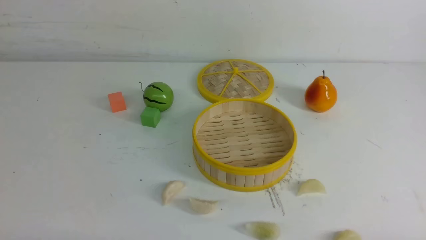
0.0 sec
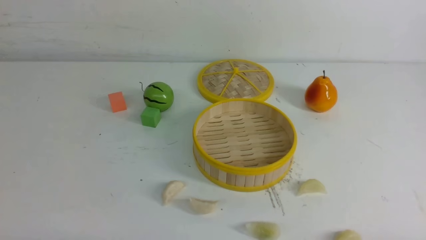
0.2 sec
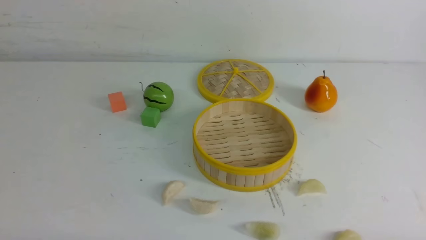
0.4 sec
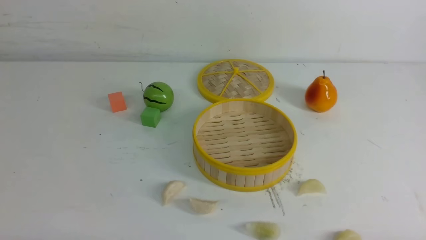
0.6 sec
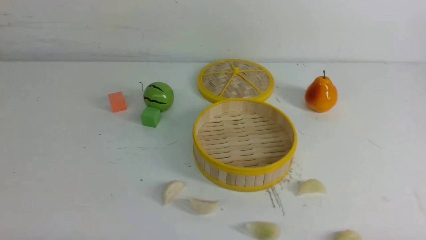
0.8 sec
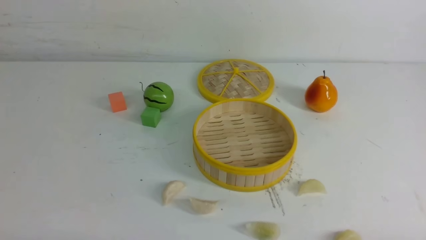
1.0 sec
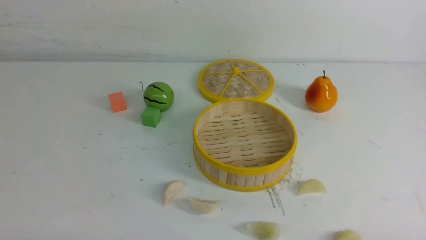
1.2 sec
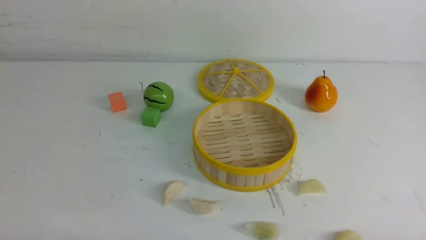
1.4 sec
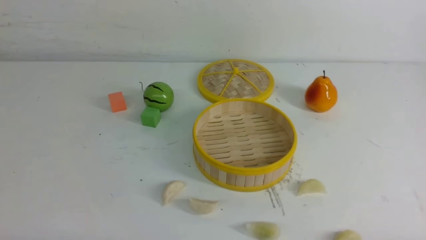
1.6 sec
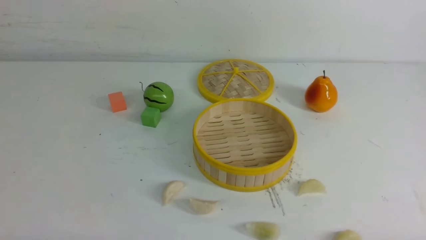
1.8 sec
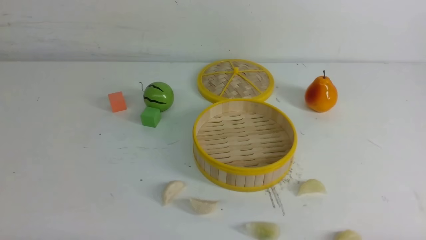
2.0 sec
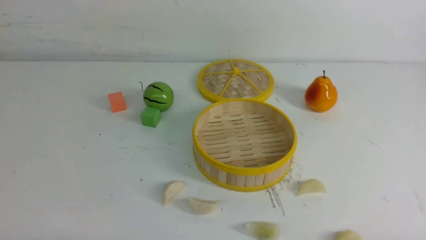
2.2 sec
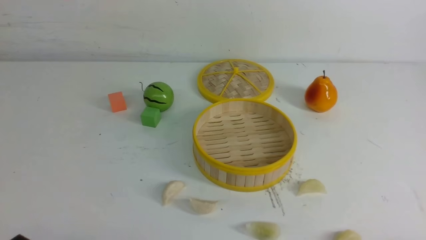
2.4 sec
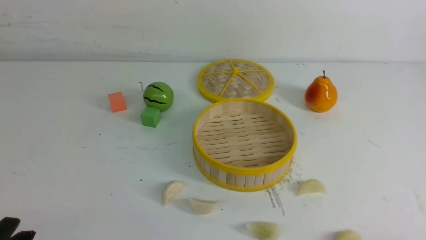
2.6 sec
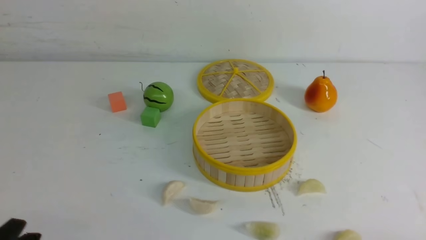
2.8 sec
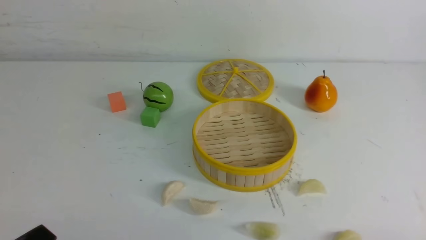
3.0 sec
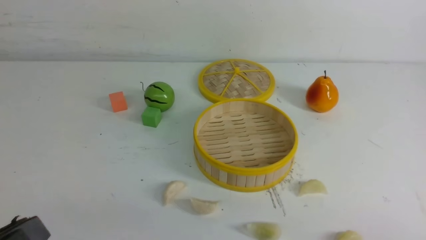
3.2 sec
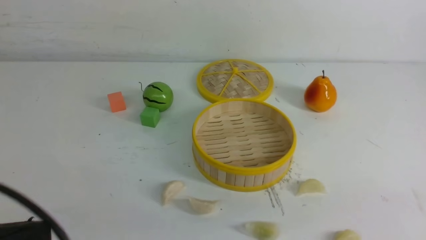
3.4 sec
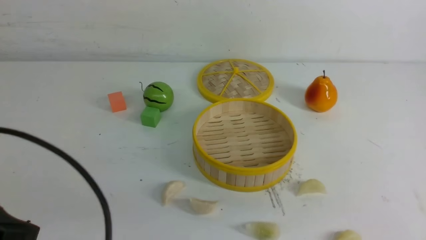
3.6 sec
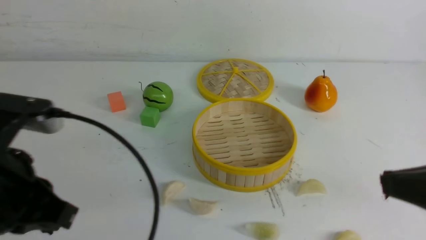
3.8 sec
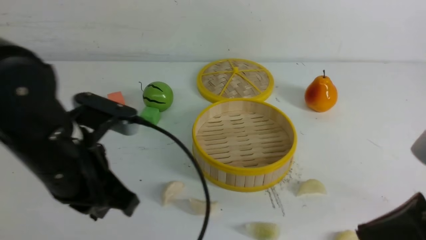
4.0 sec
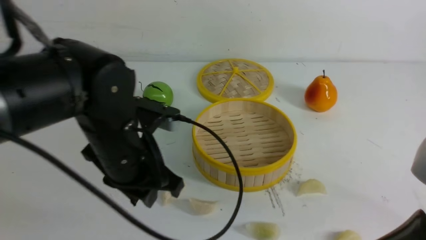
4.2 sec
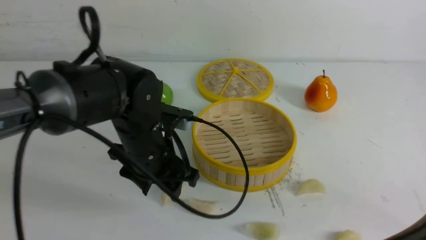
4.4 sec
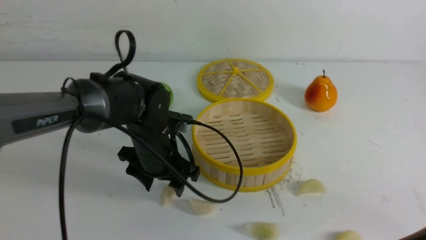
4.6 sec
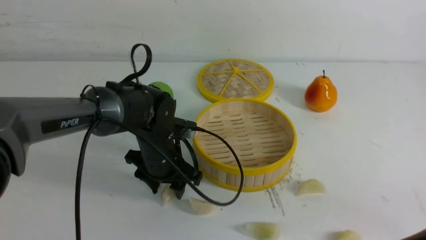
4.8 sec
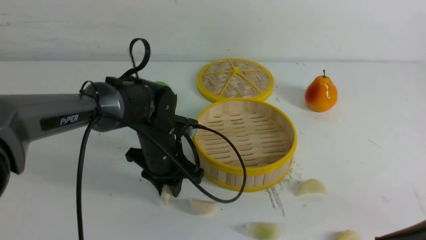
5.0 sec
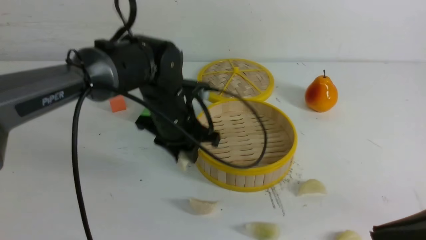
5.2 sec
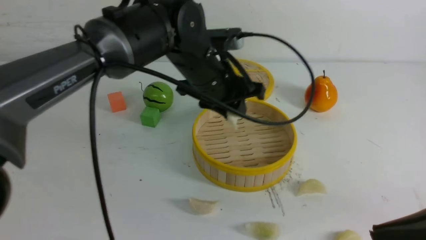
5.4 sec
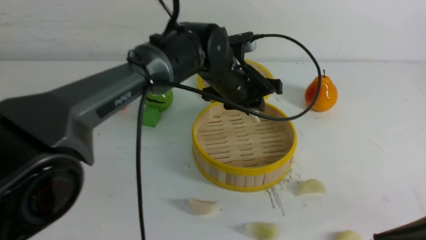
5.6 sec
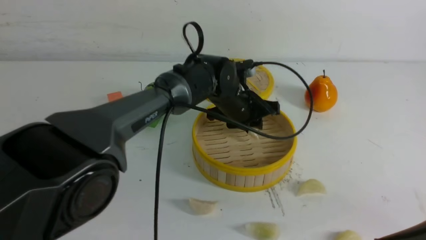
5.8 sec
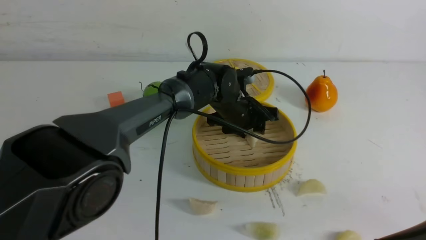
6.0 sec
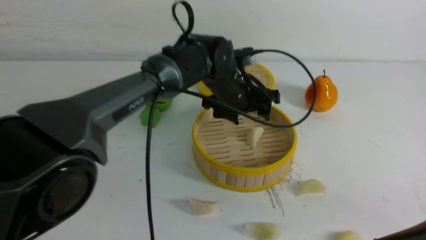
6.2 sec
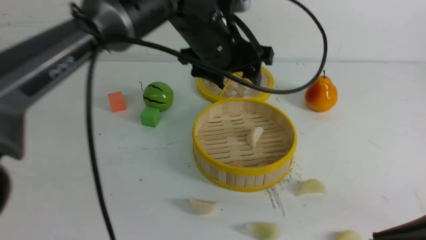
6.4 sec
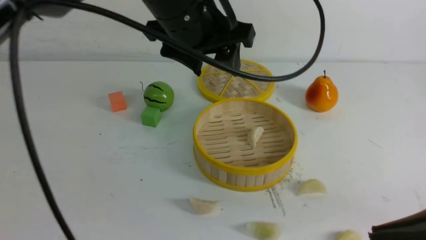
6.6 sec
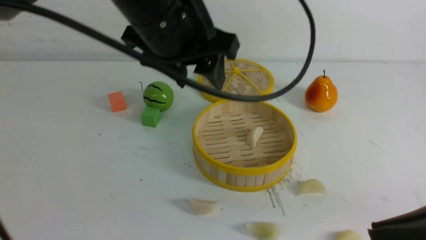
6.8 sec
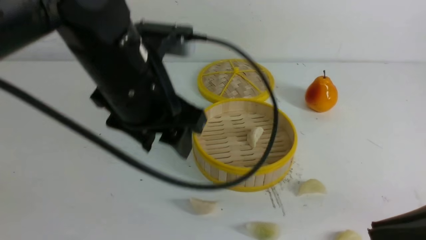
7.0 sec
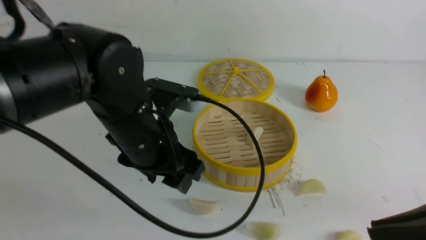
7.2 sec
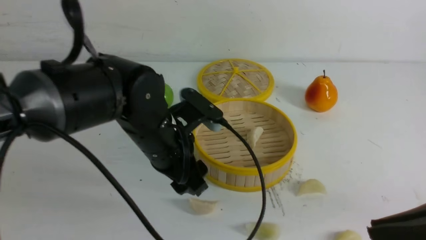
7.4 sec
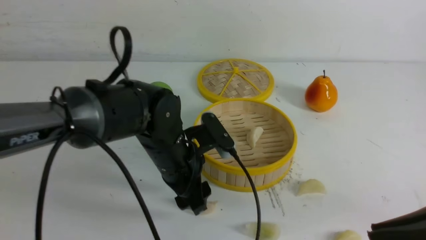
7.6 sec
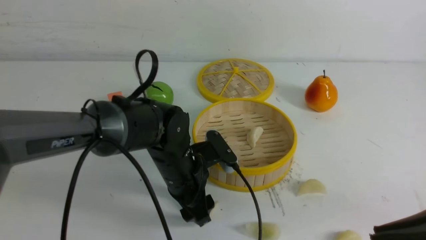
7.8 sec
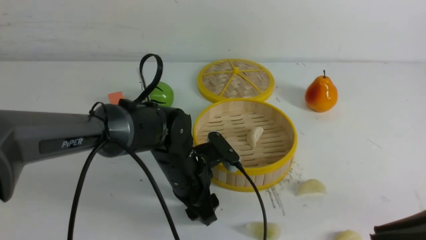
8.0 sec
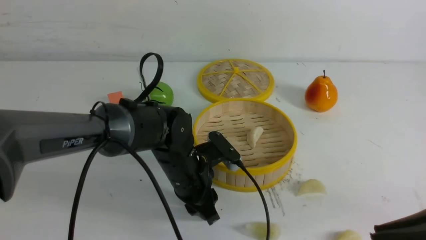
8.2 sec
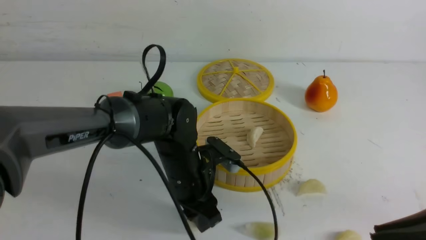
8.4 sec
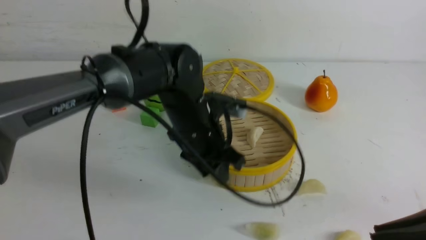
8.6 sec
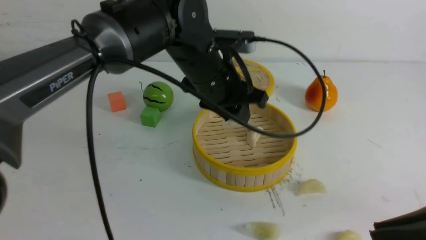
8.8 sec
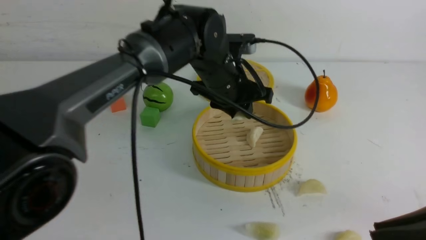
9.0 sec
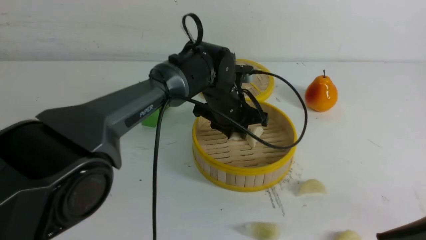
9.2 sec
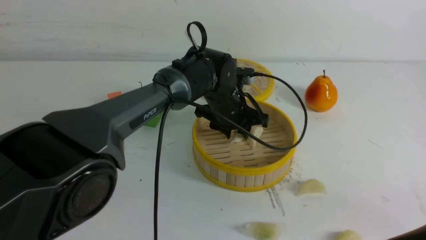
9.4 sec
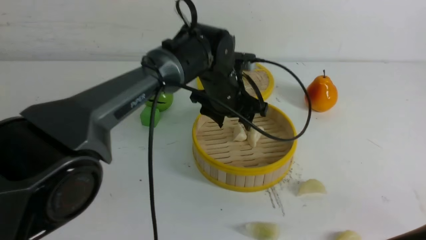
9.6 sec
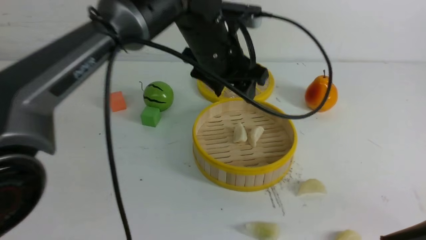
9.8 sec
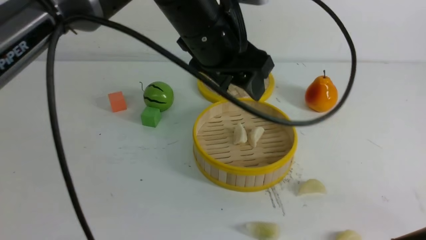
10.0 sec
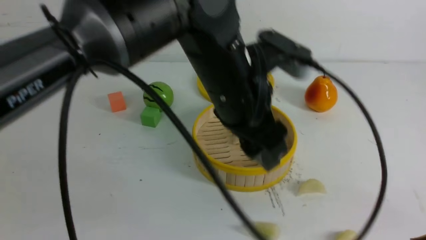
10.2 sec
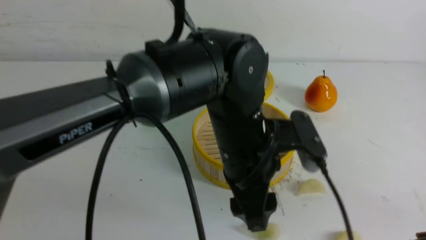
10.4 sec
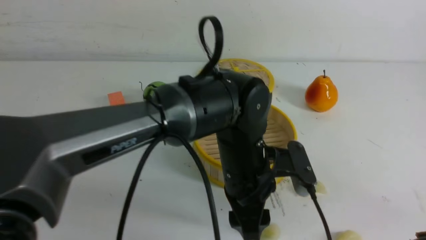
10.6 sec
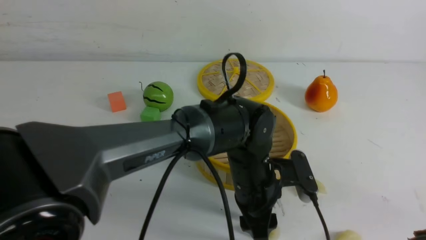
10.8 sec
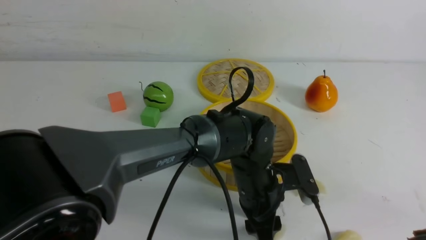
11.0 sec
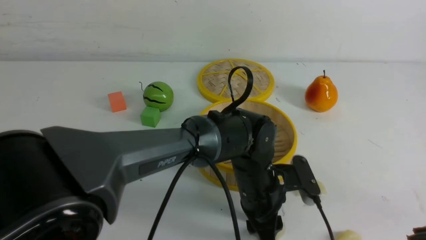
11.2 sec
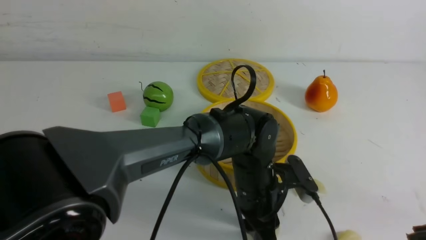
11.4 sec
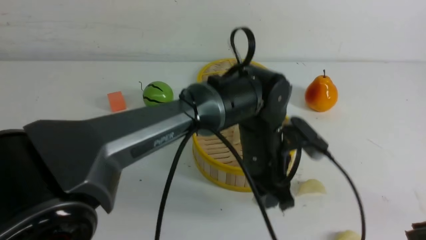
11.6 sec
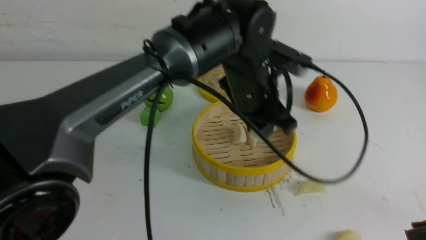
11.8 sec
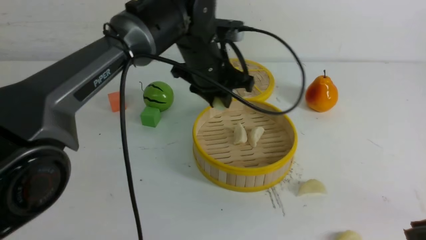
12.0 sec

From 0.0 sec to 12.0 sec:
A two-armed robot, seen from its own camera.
Task of the whole recording: put the dumplings into the steamer on the white table.
Step, from 0.0 sec to 5.0 sec: use the left arm to grab a dumpling.
Step, from 5.2 sec to 6.0 sec: use the left arm to put the dumpling into the steamer.
Step, from 6.2 sec to 8.2 sec: use the left arm to grab a dumpling.
Step, from 8.4 sec to 9.4 sec: use the left arm to put the dumpling into the steamer.
Step, from 9.6 sec to 11.4 sec: use the left arm to grab a dumpling.
From 3.0 sec to 4.4 sec: The left gripper is displaced forward and to the right by some 30 cm, and closes, then opens again; the right gripper moves upward and forward, some 15 cm, and closes.
From 4.4 sec to 6.0 sec: The left gripper travels forward and to the right by approximately 20 cm.
From 6.0 sec to 7.6 sec: The left gripper is displaced backward and to the left by approximately 15 cm, and reaches some 20 cm upward, then returns.
From 7.6 sec to 9.0 sec: The left gripper is displaced forward, to the right and upward by roughly 10 cm, and closes.
From 9.0 sec to 10.4 sec: The left gripper travels backward by approximately 10 cm, and opens up.
From 10.4 sec to 12.0 sec: The left gripper travels forward by approximately 10 cm, travels downward and back again, some 15 cm each way, and closes its fingers.

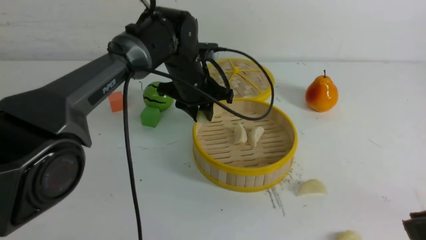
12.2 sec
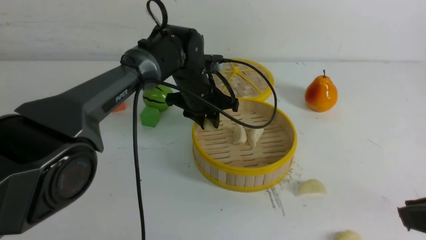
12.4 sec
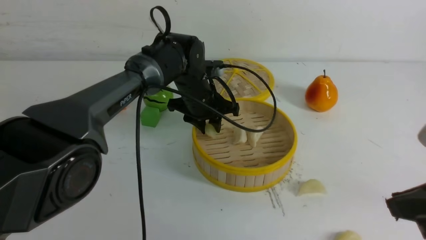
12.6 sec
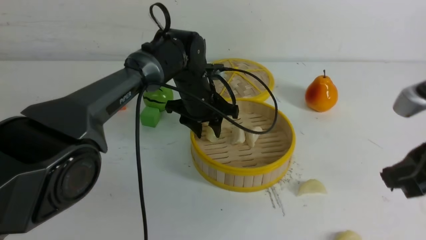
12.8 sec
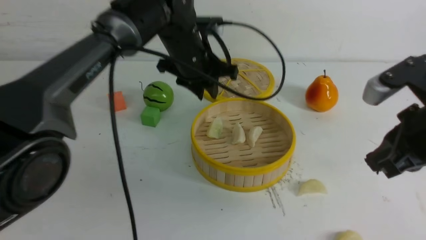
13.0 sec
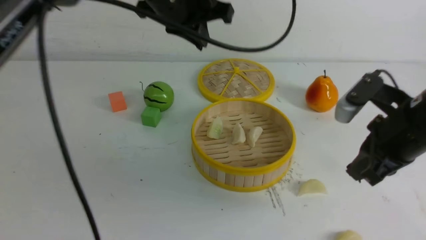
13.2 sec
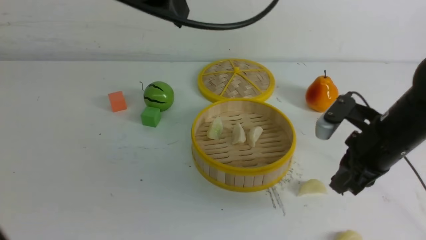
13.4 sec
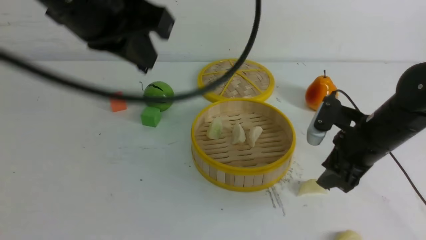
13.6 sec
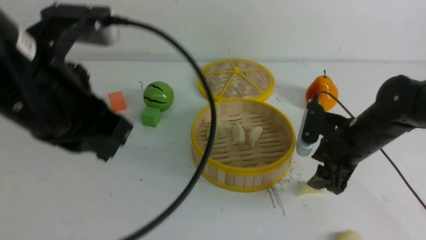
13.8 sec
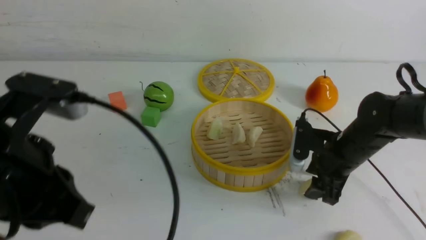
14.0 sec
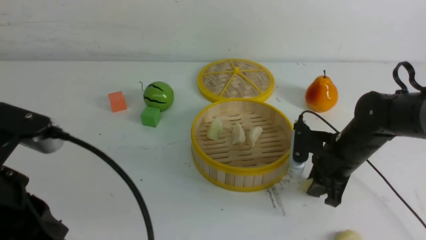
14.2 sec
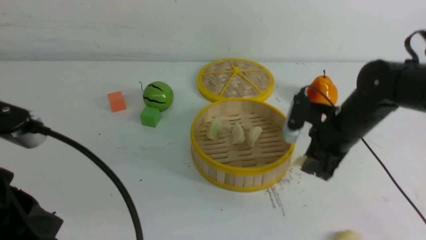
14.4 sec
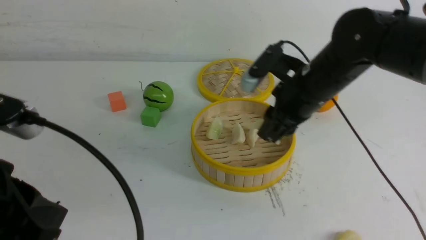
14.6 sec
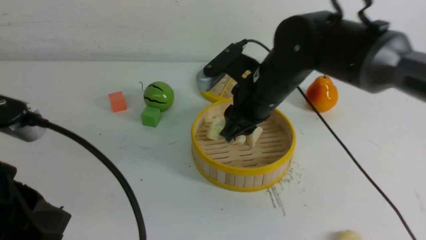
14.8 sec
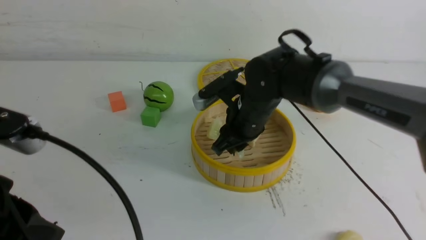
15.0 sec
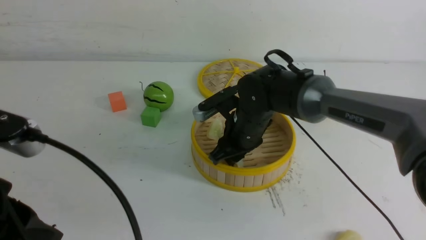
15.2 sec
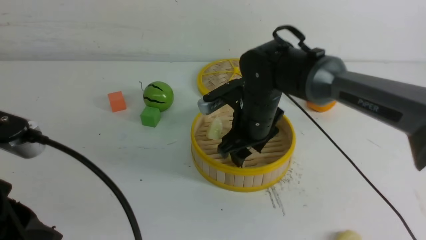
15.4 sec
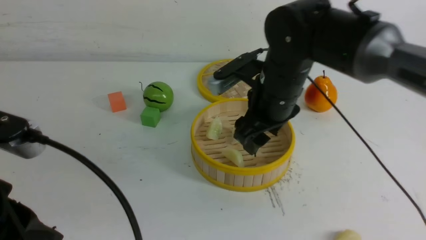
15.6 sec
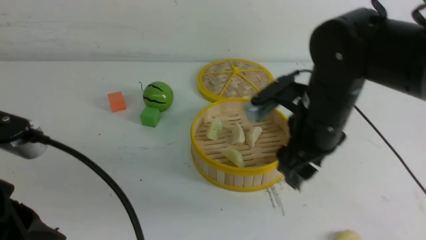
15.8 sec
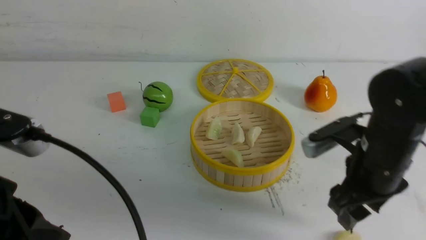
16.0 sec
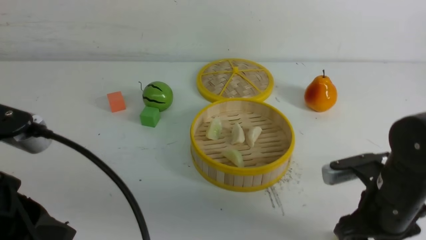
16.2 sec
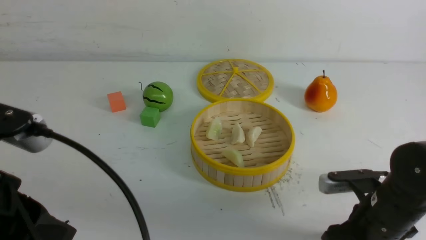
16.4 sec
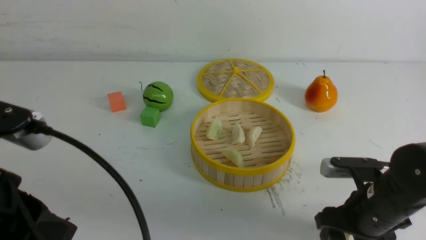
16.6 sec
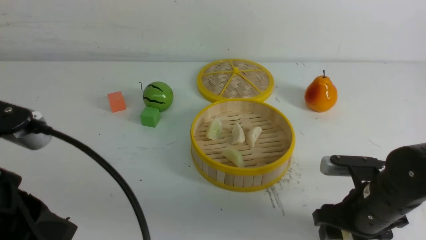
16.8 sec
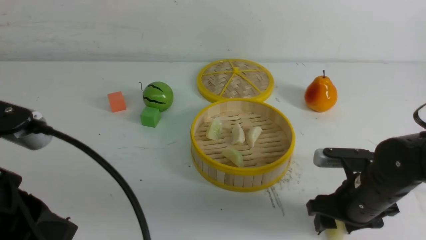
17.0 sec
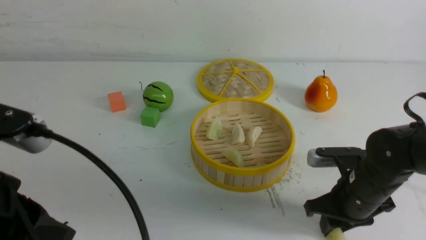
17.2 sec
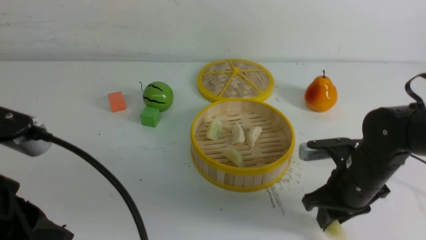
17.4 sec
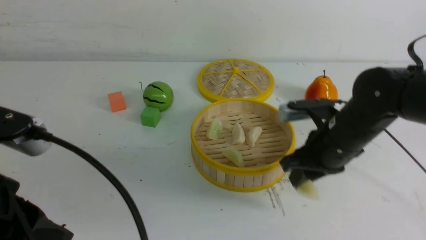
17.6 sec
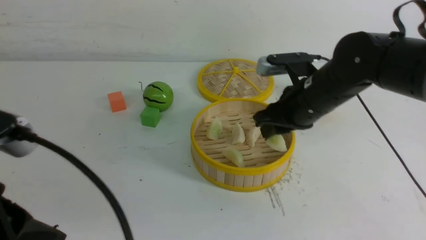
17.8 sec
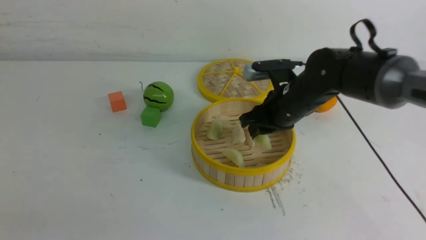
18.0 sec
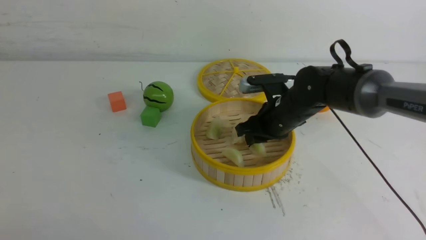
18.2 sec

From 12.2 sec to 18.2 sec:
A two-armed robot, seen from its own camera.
Task of the whole recording: put the dumplings into the steamer on the white table.
Step, from 12.2 sec to 12.8 sec: use the left arm to put the dumpling into the steamer.
Step, from 13.0 sec to 14.0 sec: use the right arm to grab a dumpling.
Step, from 14.4 sec to 15.4 sec: use the right arm to put the dumpling into the steamer.
Step, from 15.6 sec to 17.4 sec: use the right arm to grab a dumpling.
From 12.2 sec to 13.8 sec: The left gripper travels backward, upward and to the left by some 30 cm, and closes. Meanwhile the right gripper goes about 25 cm forward and downward, and opens up.
From 13.8 sec to 15.2 sec: The left gripper goes some 15 cm backward, downward and to the left, while the right gripper travels to the left by roughly 15 cm.
From 15.2 sec to 16.6 sec: The right gripper heads to the right and backward, covering about 20 cm, and opens.
From 16.6 sec to 18.2 sec: The left gripper heads backward, covering about 10 cm; the right gripper shifts some 20 cm forward and to the left, and closes up.
